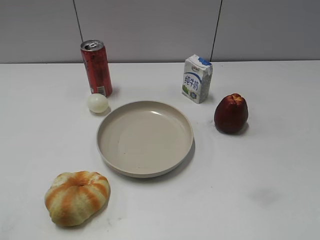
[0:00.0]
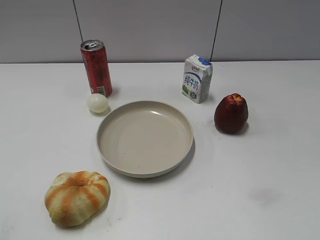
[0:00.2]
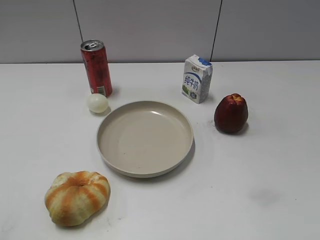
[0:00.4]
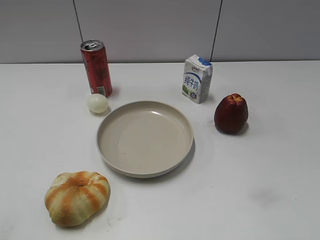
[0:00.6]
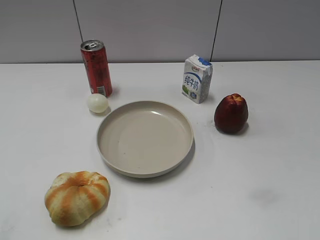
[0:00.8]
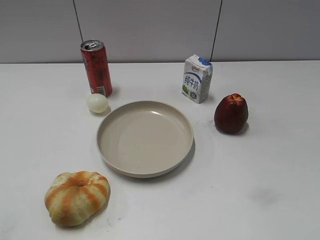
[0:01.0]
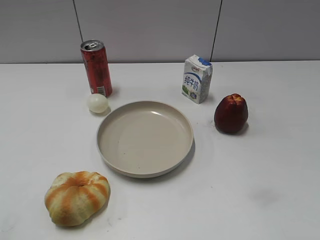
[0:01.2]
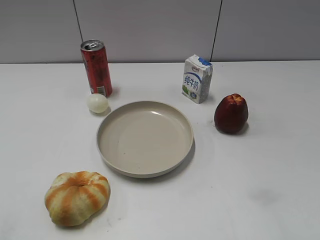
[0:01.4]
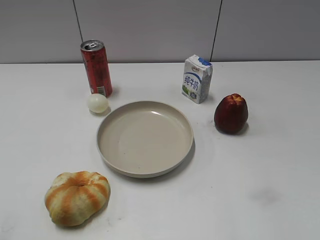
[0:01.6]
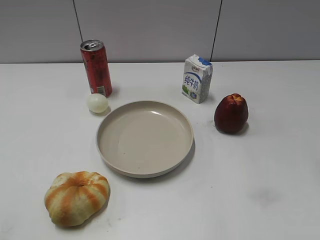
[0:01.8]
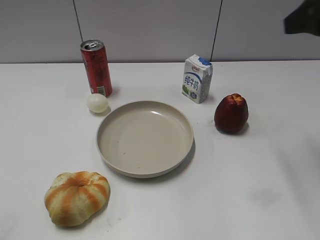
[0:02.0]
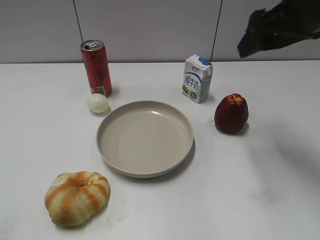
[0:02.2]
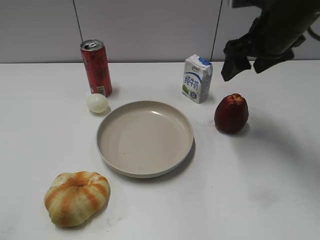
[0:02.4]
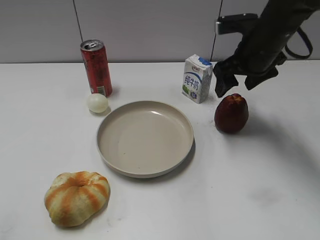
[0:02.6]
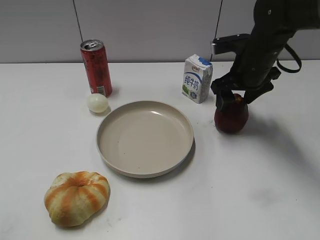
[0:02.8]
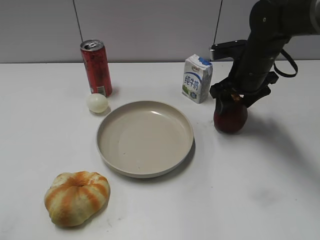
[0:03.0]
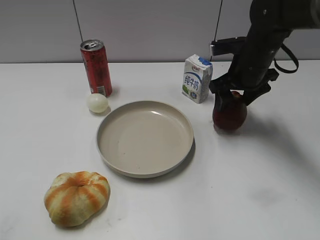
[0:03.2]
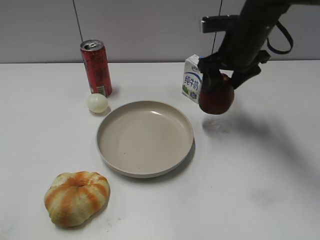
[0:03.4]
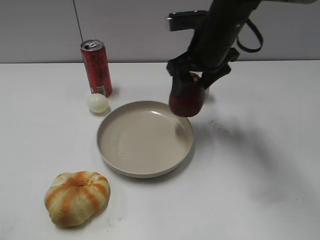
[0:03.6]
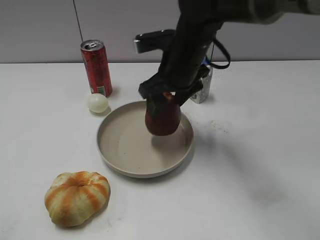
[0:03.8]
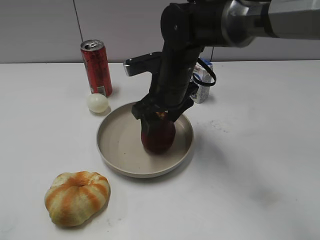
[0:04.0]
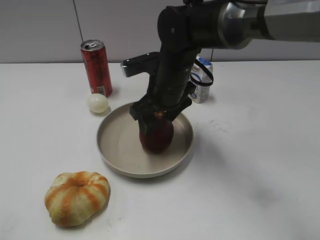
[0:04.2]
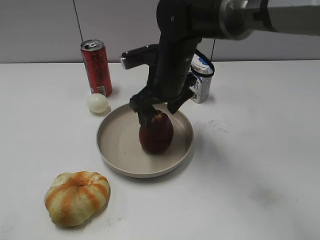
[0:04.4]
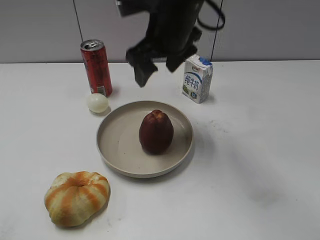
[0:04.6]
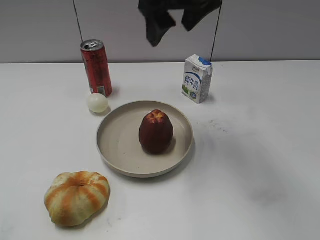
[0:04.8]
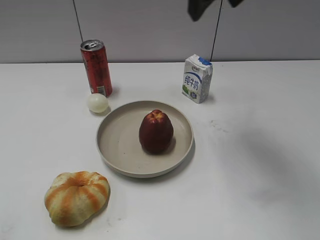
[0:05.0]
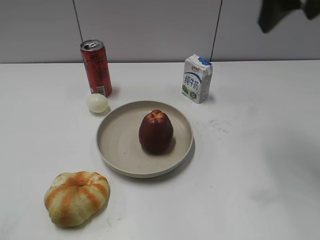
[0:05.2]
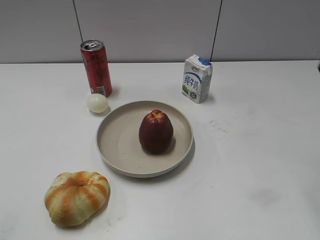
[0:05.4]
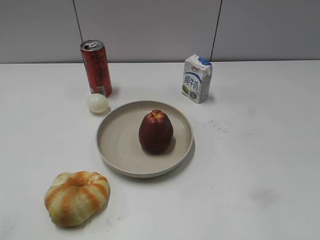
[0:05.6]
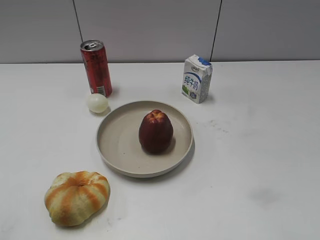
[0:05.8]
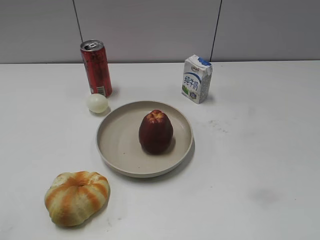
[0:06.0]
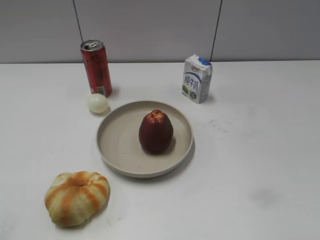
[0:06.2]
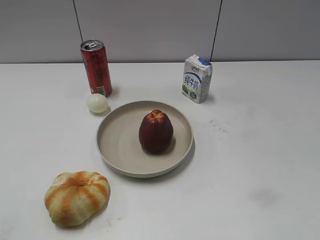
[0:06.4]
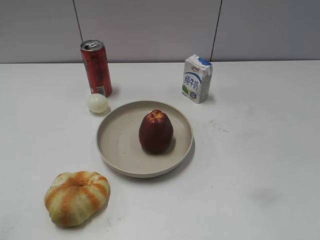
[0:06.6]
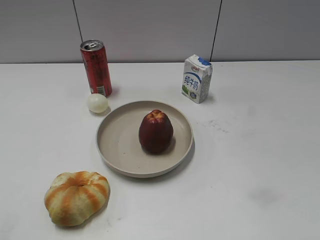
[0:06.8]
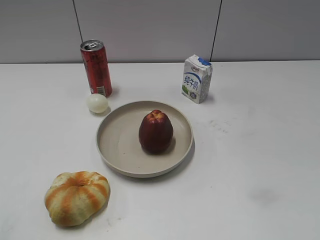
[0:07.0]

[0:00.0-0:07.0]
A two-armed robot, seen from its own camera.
Step, 0:00.8 to 0:03.0: Grasp the apple with right gripper.
Step, 0:03.2 to 0:04.4: Place the apple on the plate with right gripper.
0:01.4 to 0:02.8: The right gripper heads forward and downward, covering roughly 35 cm.
0:02.8 to 0:04.2: The right gripper moves to the left, roughly 15 cm, and closes and opens again.
0:04.2 to 0:05.6: The right gripper travels to the right, backward and upward by about 40 cm.

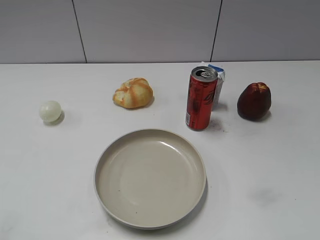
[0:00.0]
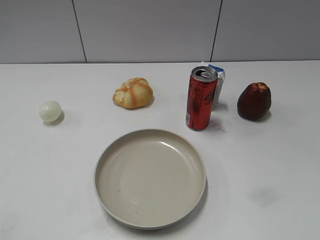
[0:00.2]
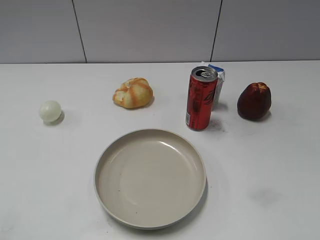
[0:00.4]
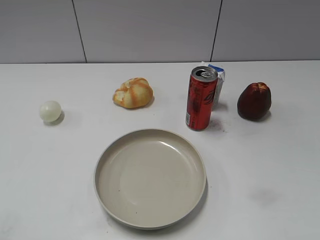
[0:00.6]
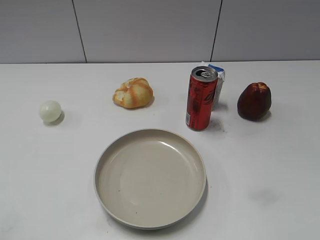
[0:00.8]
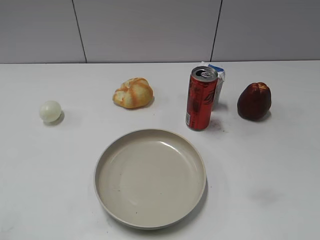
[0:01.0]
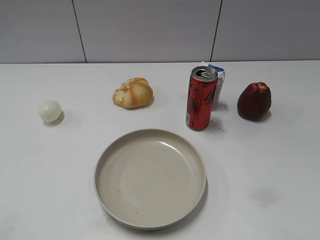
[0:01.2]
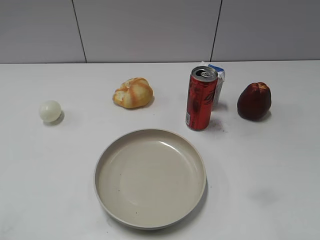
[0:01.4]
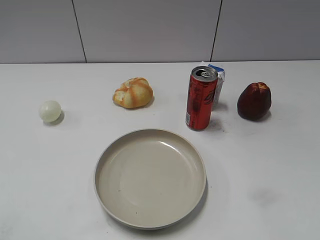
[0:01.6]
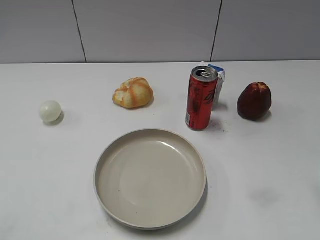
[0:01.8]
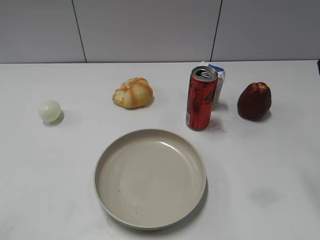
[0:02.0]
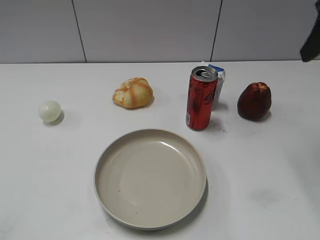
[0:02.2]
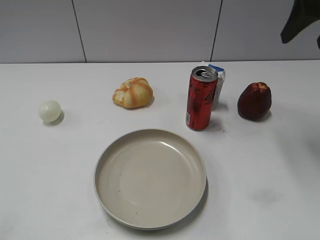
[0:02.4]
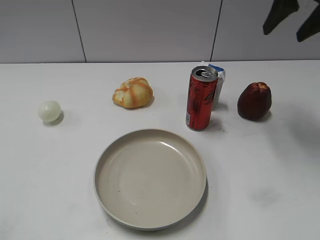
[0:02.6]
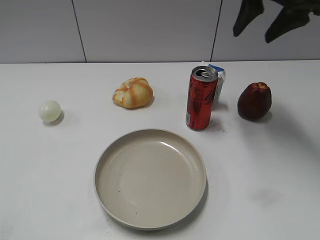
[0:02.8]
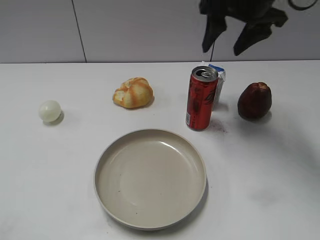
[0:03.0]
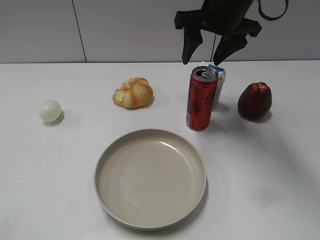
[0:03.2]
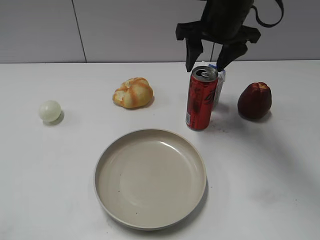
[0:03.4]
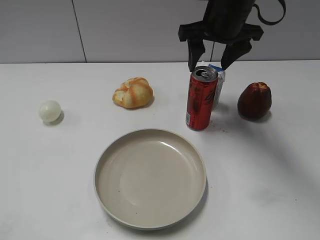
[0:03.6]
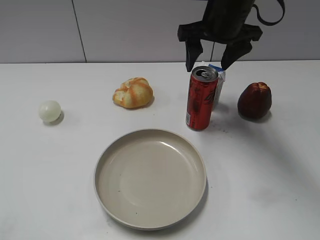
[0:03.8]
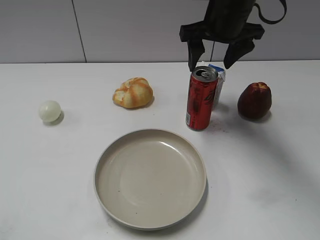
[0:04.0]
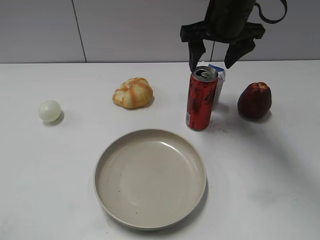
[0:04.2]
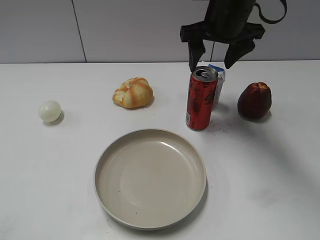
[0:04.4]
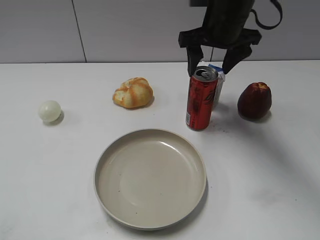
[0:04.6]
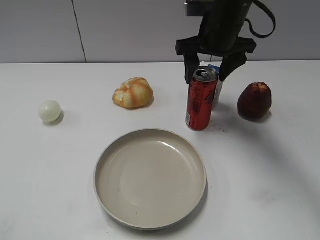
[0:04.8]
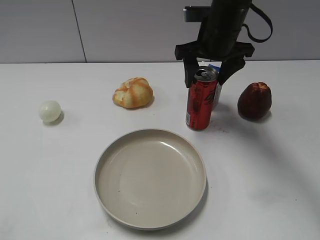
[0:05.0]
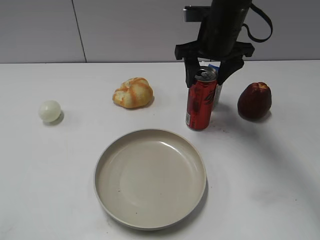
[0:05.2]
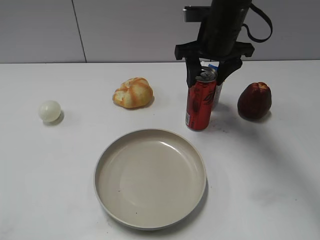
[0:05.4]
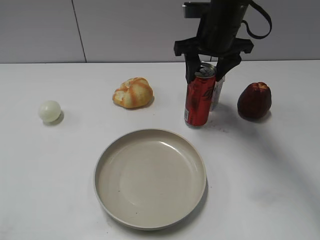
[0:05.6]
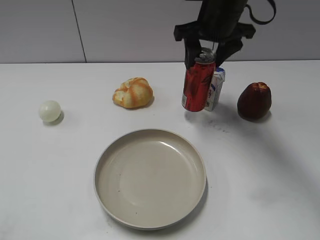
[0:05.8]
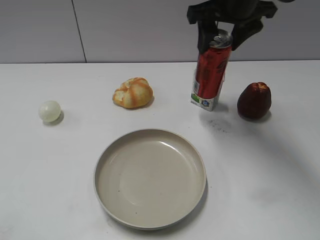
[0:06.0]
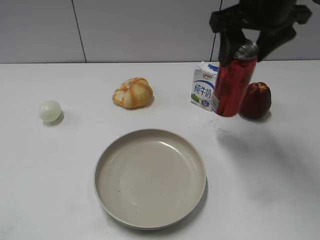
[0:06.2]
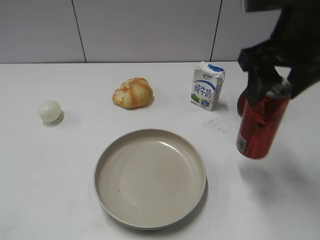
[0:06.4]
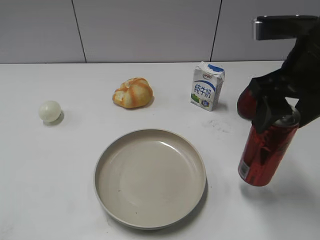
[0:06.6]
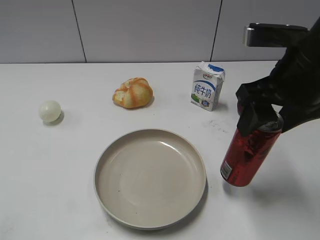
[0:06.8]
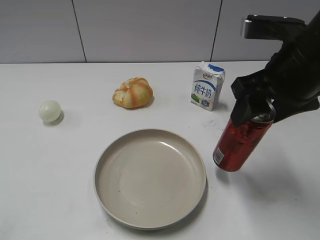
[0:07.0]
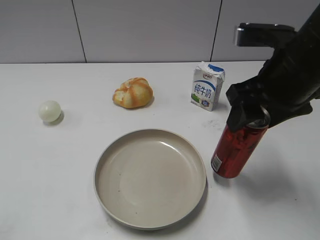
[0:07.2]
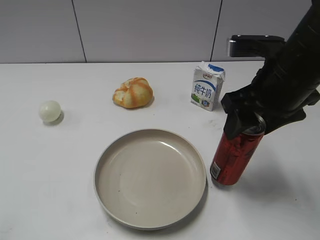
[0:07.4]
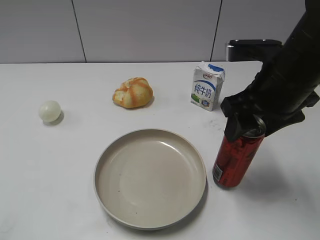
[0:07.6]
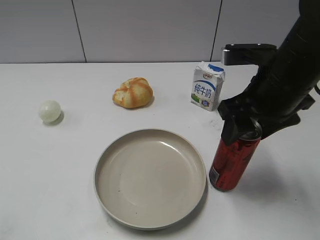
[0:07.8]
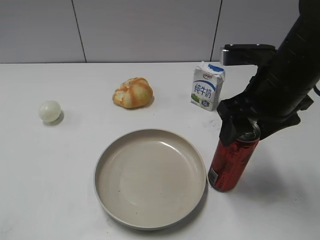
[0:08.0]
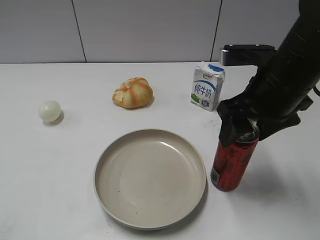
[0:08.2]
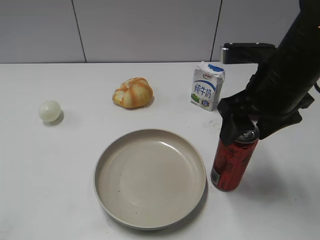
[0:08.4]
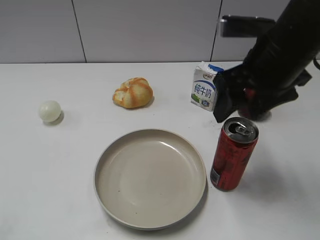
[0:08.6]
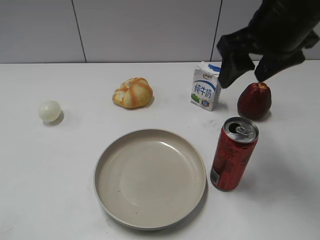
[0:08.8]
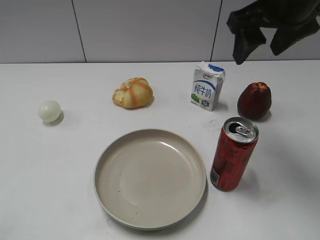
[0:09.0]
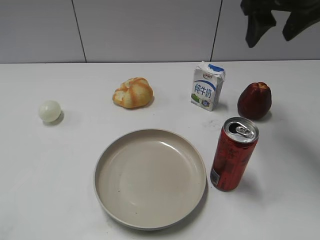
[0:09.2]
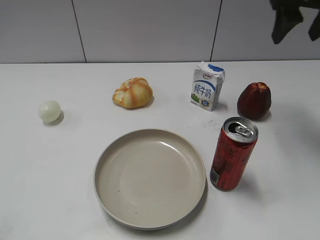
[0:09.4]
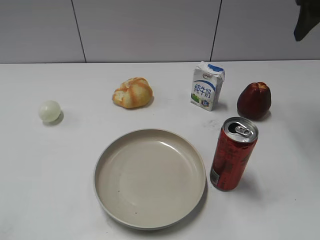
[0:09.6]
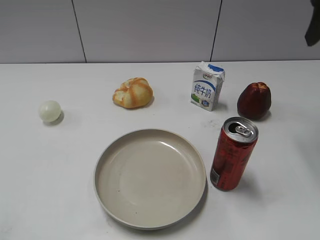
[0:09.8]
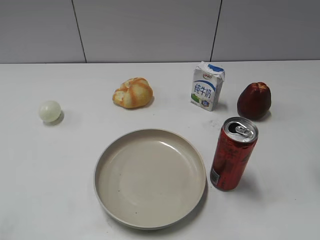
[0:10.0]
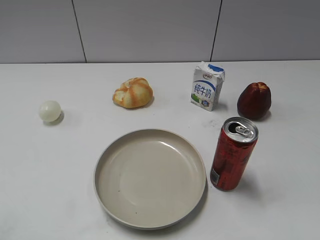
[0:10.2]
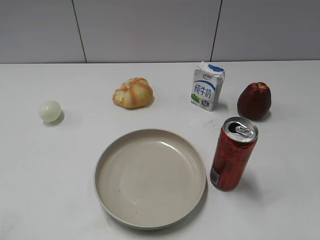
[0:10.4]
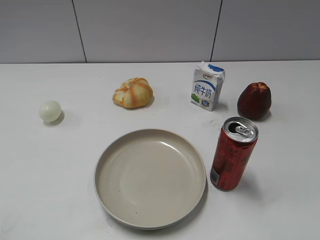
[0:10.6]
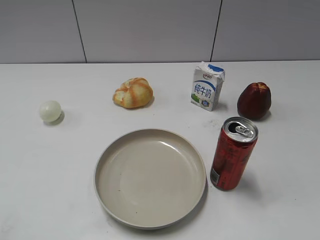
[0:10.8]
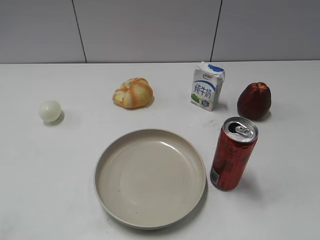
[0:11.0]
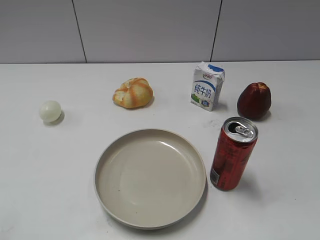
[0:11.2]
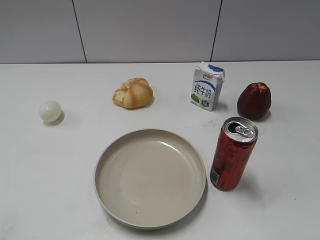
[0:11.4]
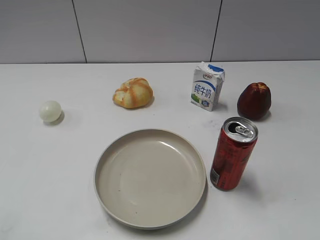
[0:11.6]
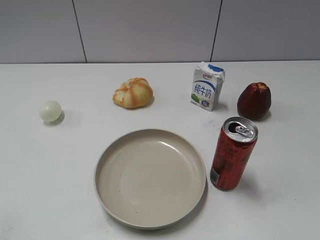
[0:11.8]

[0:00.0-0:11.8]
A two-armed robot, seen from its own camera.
Step, 0:00.8 to 0:05.4: Grasp the cola with right gripper.
Step, 0:05.6 to 0:08.6: Place the cola on the table with right gripper.
0:01.4 to 0:03.0: The right gripper goes some 35 cm forward and to the left.
0:03.0 to 0:04.4: The right gripper opens up.
0:04.4 to 0:06.0: The right gripper moves approximately 5 cm, and closes up.
0:06.0 to 0:07.4: The right gripper moves backward and downward, approximately 15 cm.
0:07.4 to 0:08.8: The right gripper is displaced upward by some 5 cm, and opens.
0:08.8 to 0:10.4: The right gripper travels backward and to the right by about 20 cm.

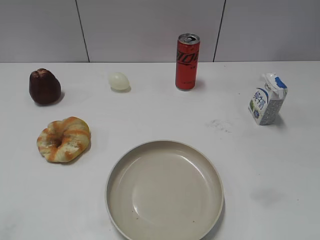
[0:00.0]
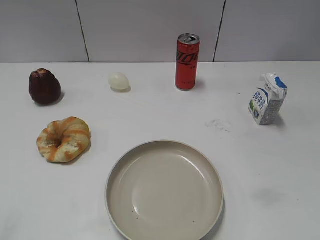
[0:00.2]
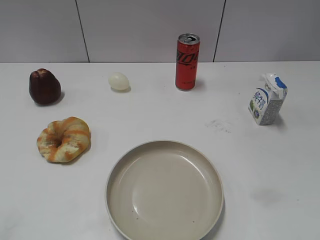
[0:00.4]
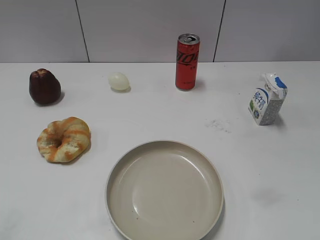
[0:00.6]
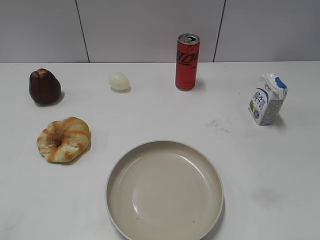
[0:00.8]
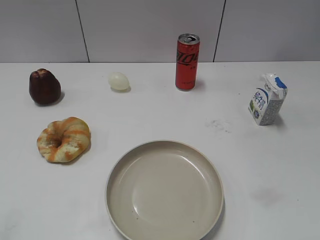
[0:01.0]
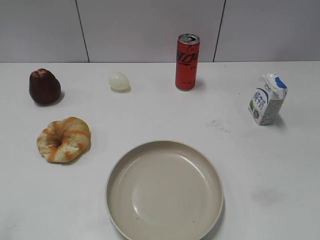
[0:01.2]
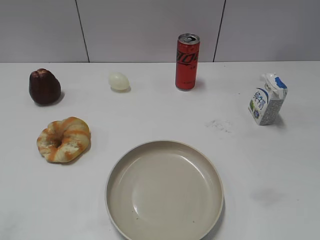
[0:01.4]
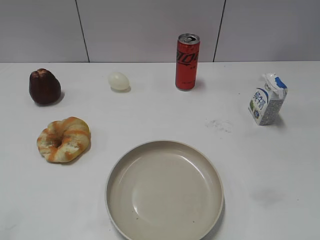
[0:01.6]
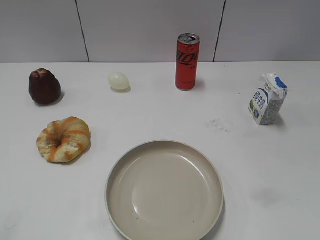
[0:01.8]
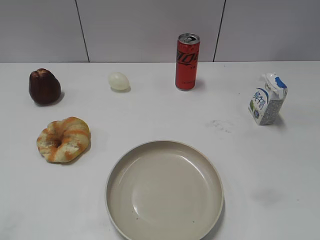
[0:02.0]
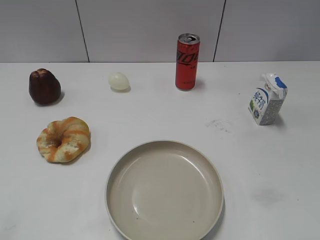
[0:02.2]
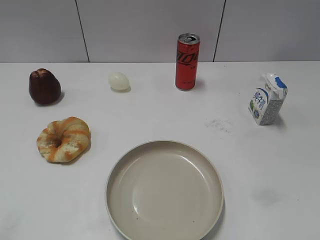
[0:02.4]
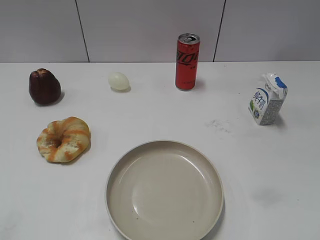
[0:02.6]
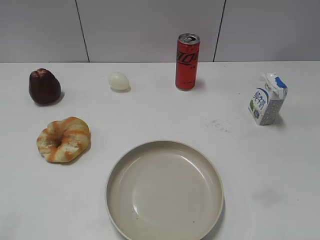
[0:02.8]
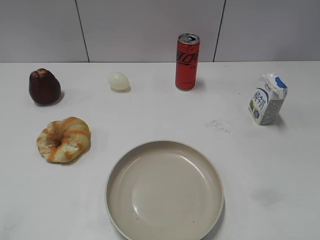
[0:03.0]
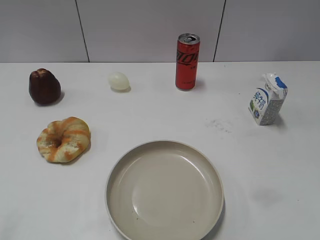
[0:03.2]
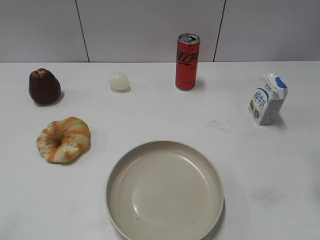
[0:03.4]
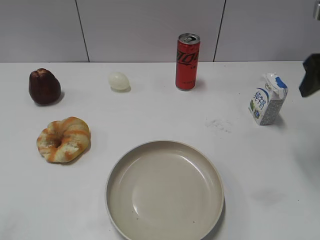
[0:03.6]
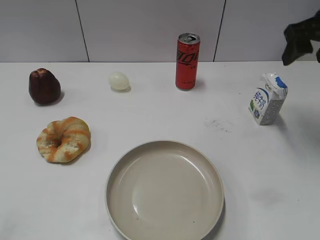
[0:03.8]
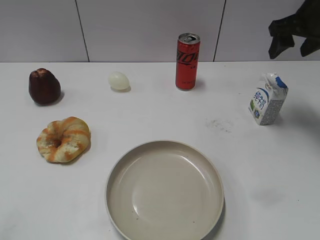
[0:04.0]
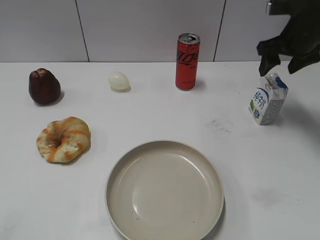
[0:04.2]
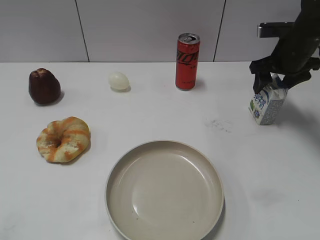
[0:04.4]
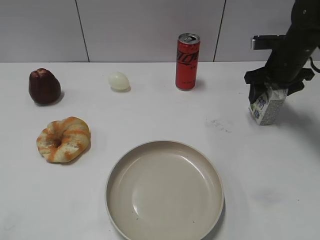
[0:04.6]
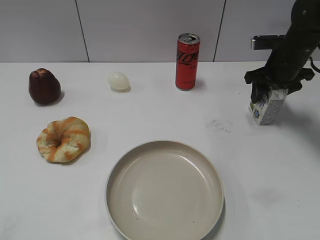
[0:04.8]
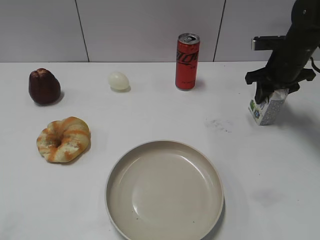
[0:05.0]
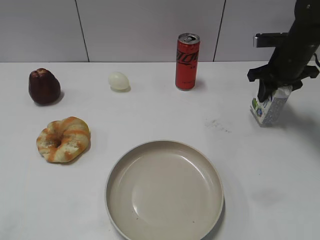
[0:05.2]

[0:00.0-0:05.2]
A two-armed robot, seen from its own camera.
Step, 0:02.2 to 0:05.2: Grasp the milk with right gripper.
0:03.4 to 0:05.2: The right gripper travels forward and downward by approximately 20 cm, and closes.
